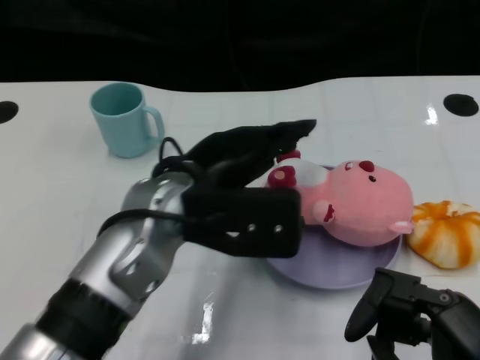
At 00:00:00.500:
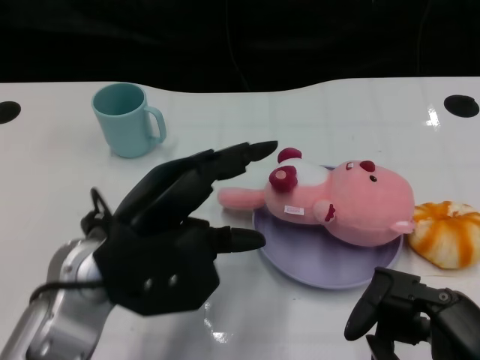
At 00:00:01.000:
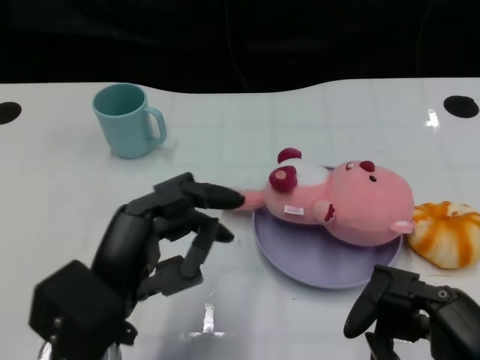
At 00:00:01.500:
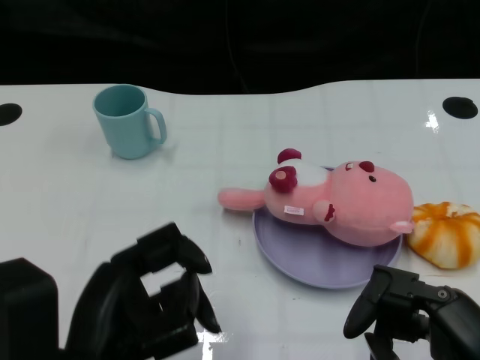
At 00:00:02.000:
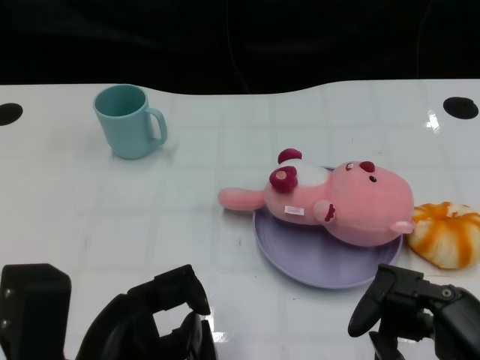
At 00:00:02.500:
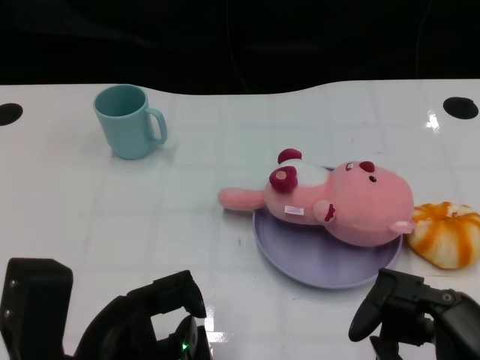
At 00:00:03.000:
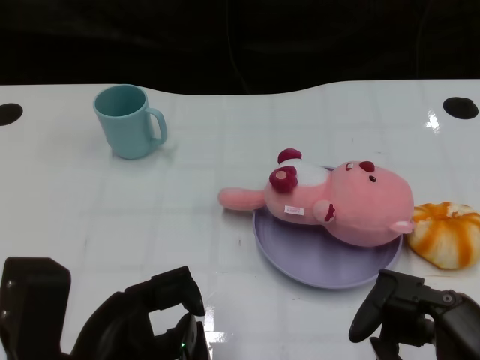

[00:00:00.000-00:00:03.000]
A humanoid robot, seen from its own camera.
Task of the whole recording: Pick up the doll on one side of the plate and place it into the plate.
00:00:00.000 to 00:00:01.500: The left hand goes approximately 15 cm backward and to the left.
00:00:01.500 to 00:00:03.000: The hands make only small movements.

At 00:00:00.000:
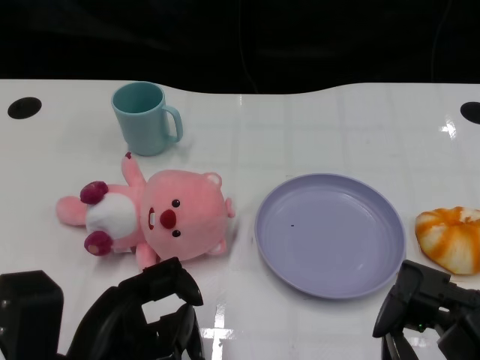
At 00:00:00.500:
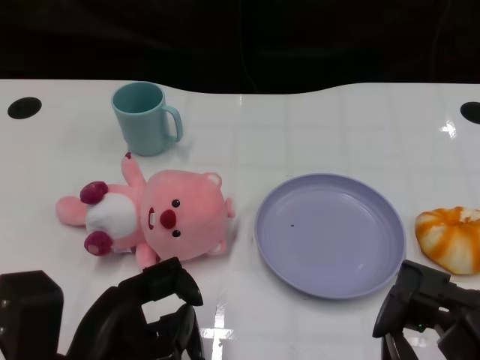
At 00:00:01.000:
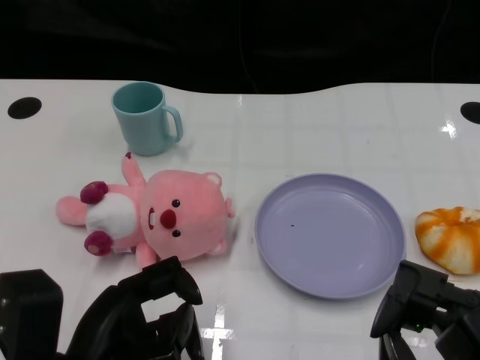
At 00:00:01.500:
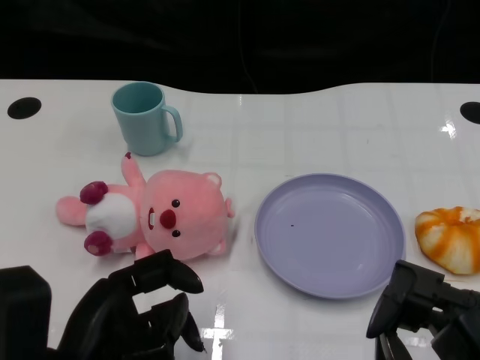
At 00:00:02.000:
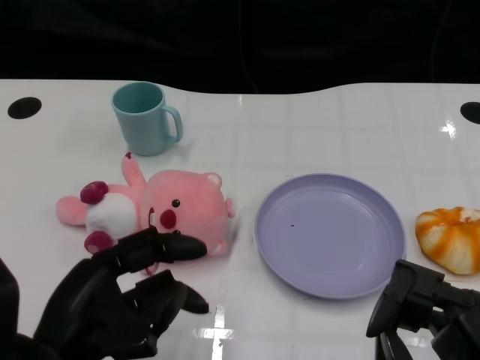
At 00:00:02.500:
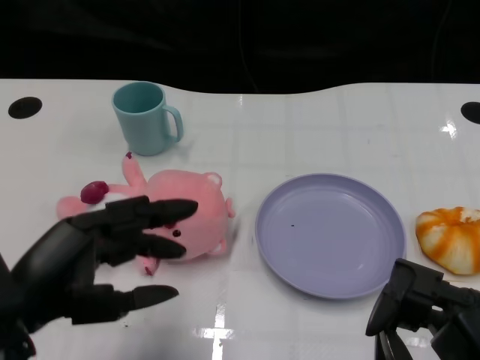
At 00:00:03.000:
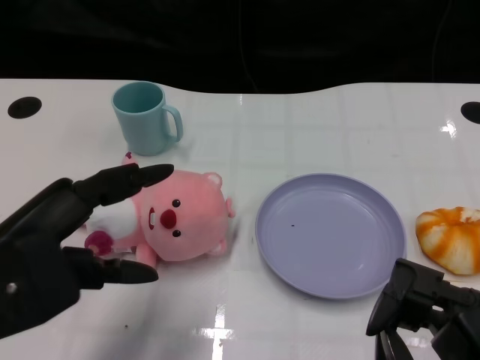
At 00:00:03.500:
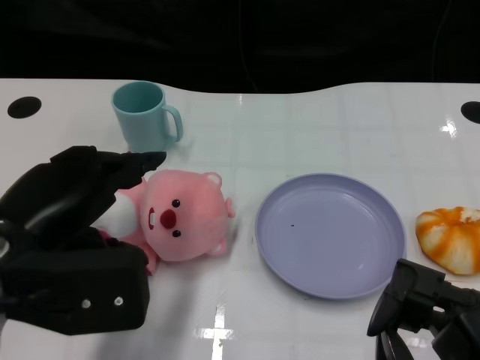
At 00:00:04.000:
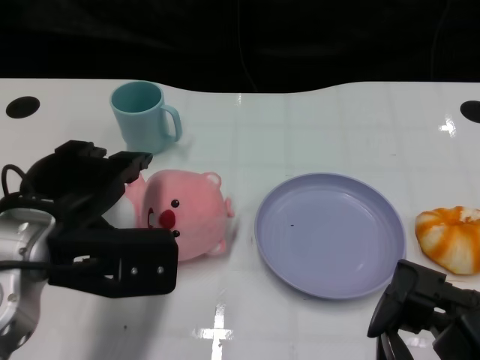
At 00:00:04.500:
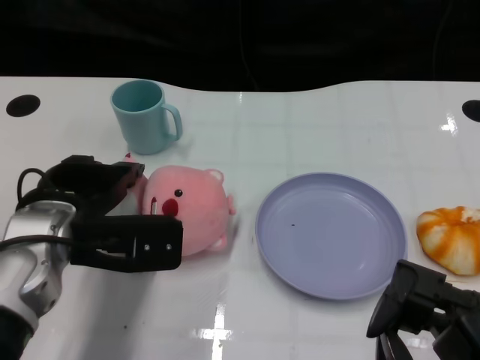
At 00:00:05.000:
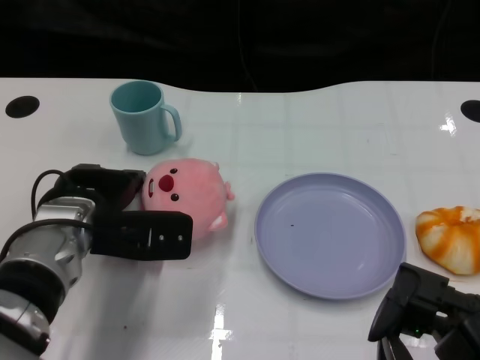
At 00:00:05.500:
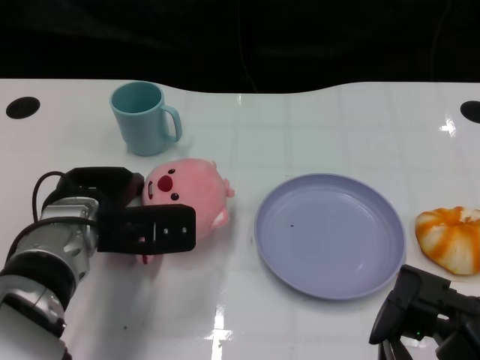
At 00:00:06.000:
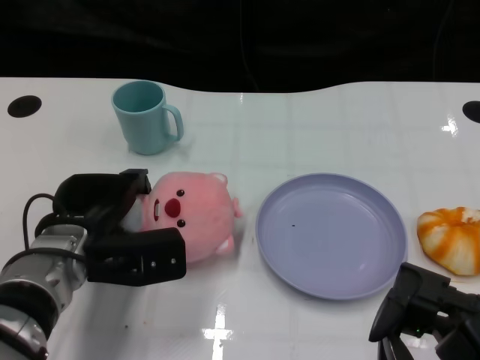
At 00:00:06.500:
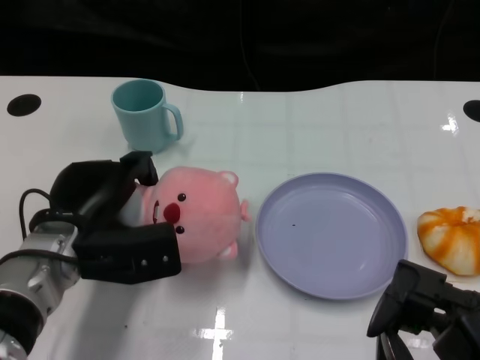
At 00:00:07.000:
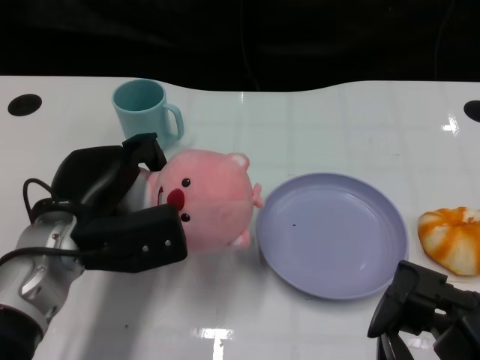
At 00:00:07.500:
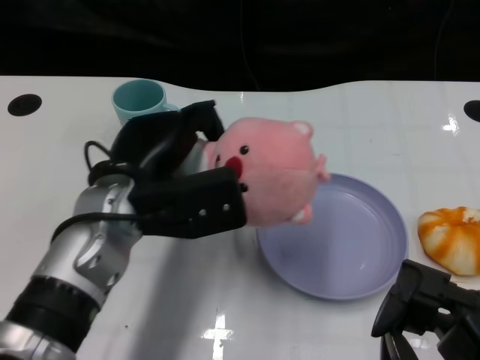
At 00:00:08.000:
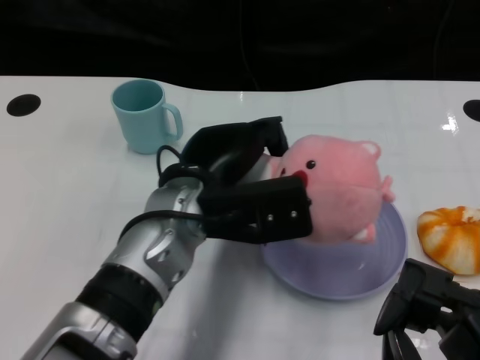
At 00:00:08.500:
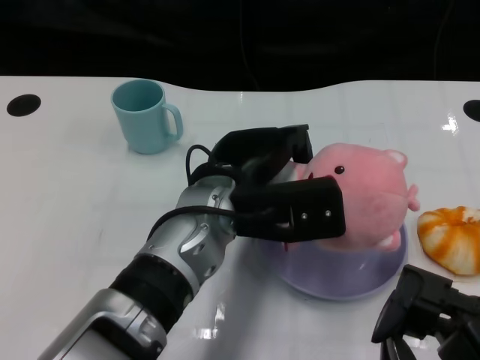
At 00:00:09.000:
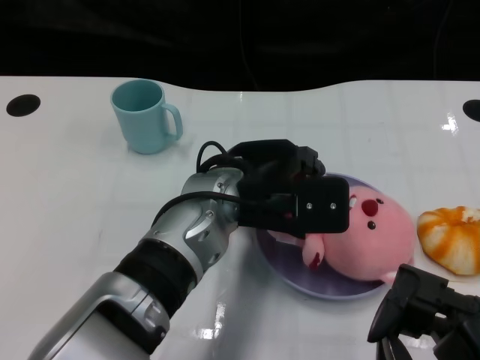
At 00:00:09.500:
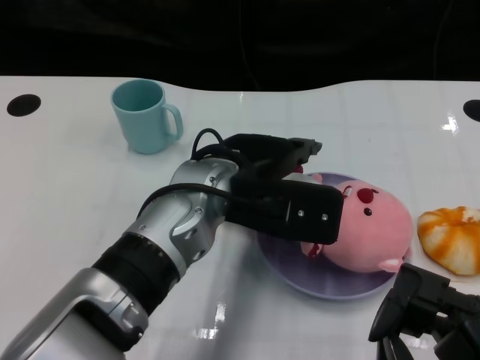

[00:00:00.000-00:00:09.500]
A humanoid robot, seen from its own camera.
Task of the whole recording: Pick up the doll on one side of the plate and place it into the plate.
Step, 00:00:01.500 to 00:00:06.000: Grasp the pink doll with the left gripper.
Step, 00:00:06.500 to 00:00:09.000: Place the pink doll into the plate with the left gripper.
00:00:02.000 to 00:00:04.000: The left hand goes roughly 10 cm forward and upward.
00:00:04.000 to 00:00:05.500: The left hand travels downward and forward by some 10 cm.
00:00:05.500 to 00:00:07.500: The left hand moves upward, about 5 cm.
00:00:07.500 to 00:00:09.500: The left hand goes about 10 cm to the right.

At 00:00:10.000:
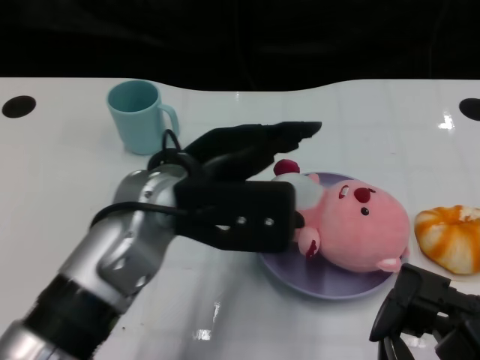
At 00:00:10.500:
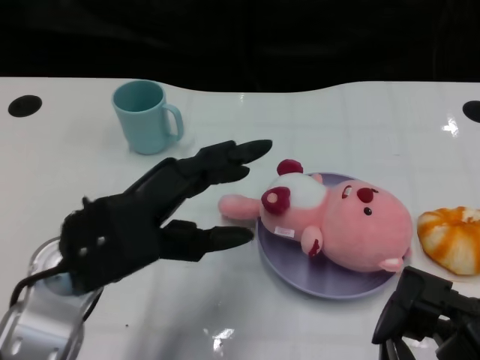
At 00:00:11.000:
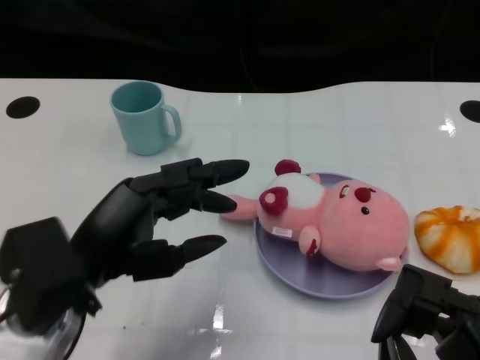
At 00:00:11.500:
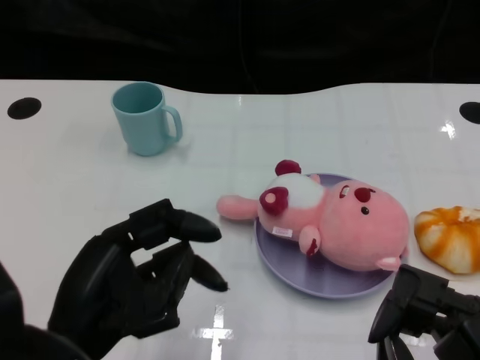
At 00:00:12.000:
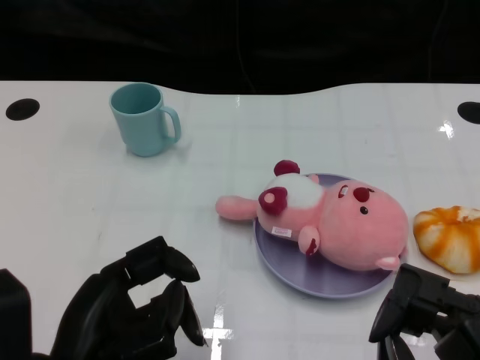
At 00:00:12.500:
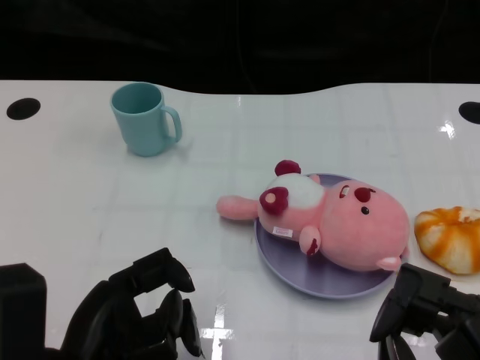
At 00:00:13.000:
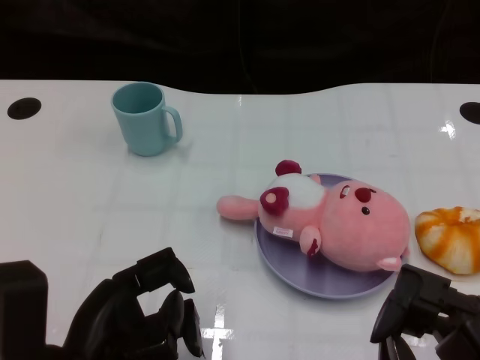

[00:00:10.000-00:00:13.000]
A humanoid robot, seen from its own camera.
Task of the whole recording: Pick up the doll on one side of the plate and place it into the plate.
00:00:10.000 to 00:00:11.500: The left hand travels backward, to the left and downward by some 15 cm.

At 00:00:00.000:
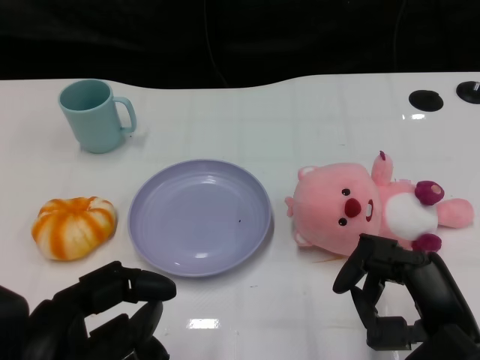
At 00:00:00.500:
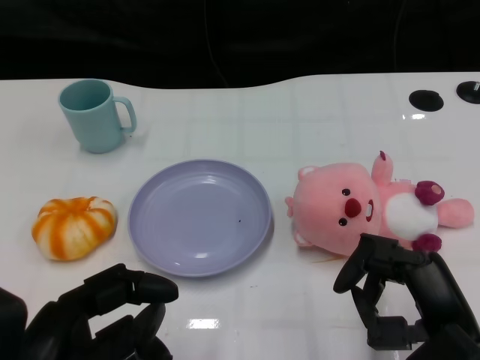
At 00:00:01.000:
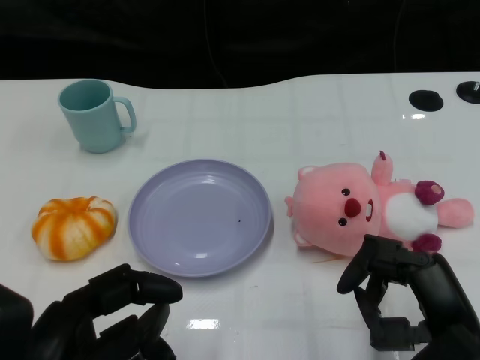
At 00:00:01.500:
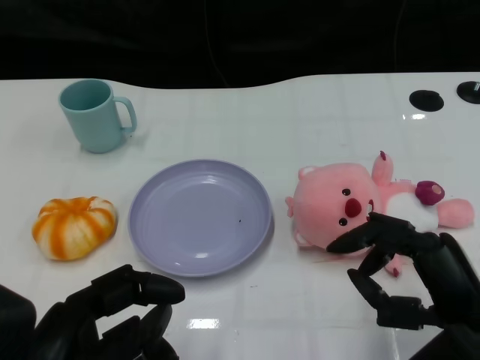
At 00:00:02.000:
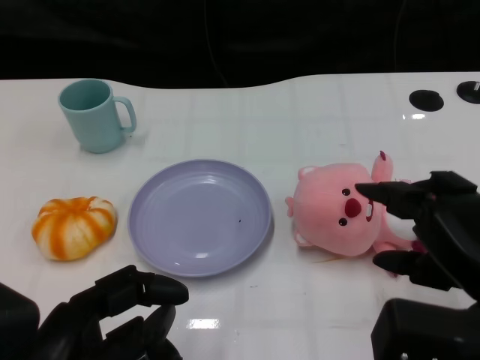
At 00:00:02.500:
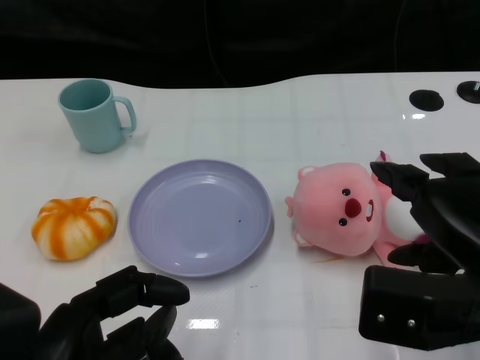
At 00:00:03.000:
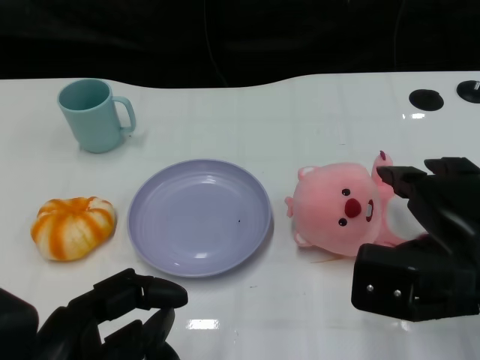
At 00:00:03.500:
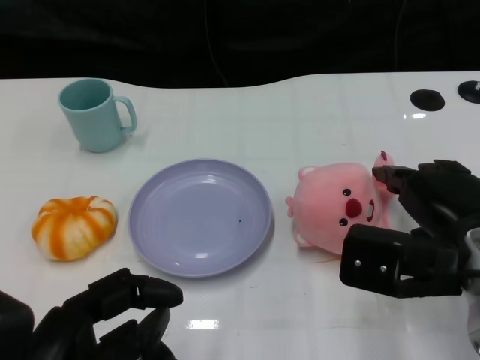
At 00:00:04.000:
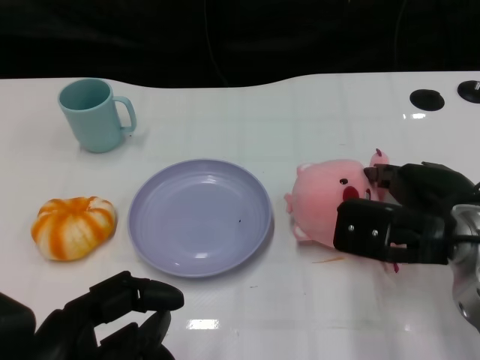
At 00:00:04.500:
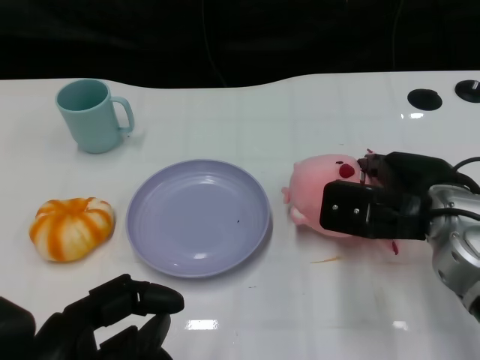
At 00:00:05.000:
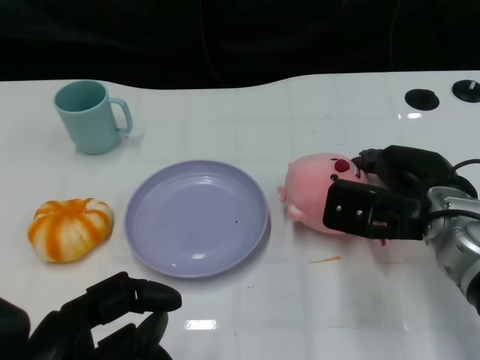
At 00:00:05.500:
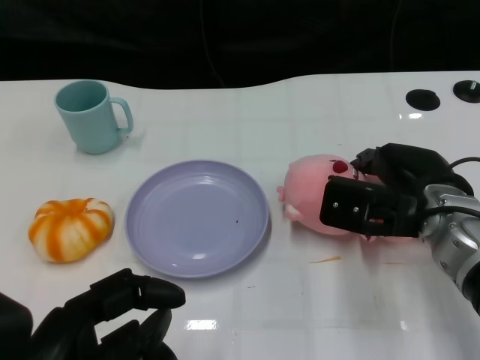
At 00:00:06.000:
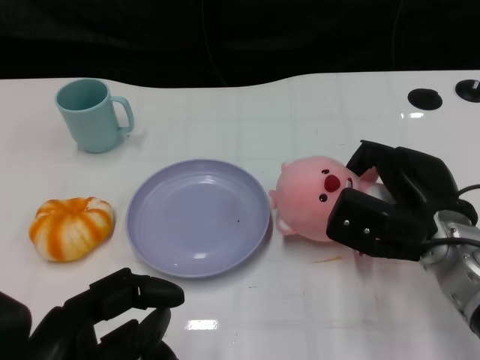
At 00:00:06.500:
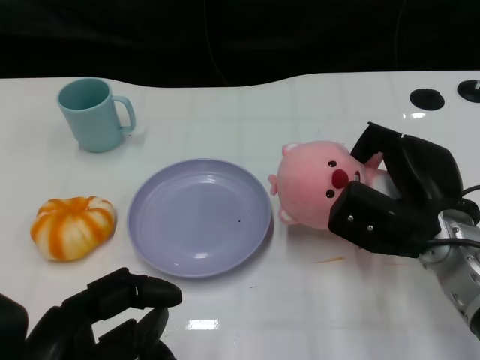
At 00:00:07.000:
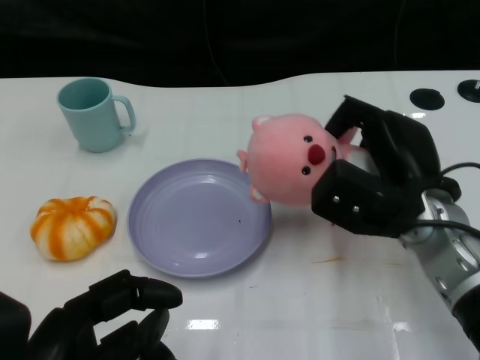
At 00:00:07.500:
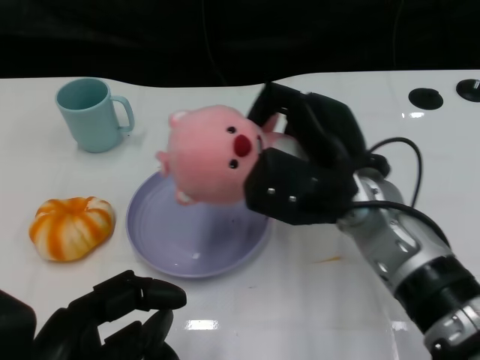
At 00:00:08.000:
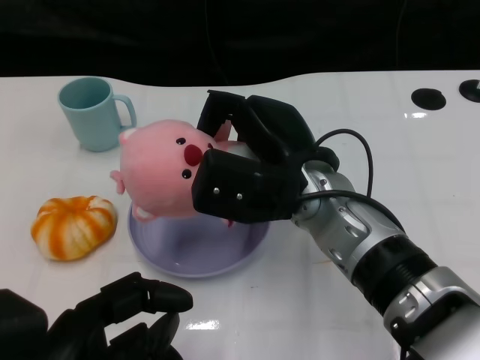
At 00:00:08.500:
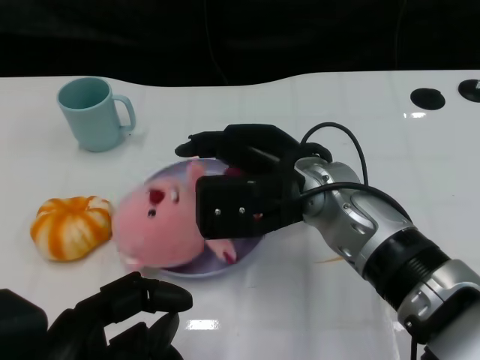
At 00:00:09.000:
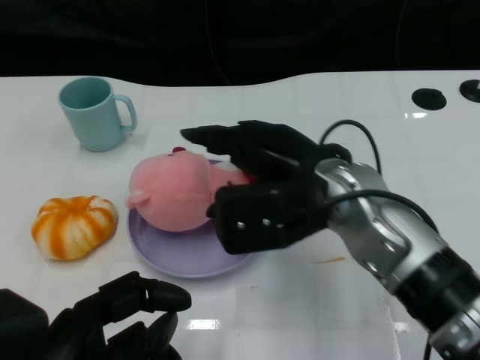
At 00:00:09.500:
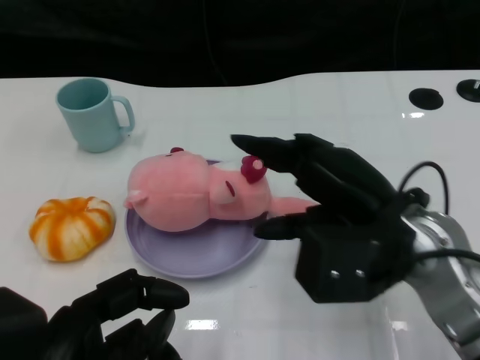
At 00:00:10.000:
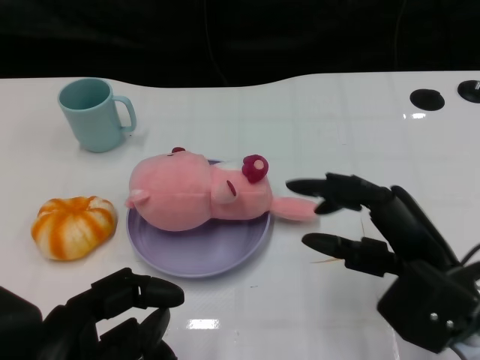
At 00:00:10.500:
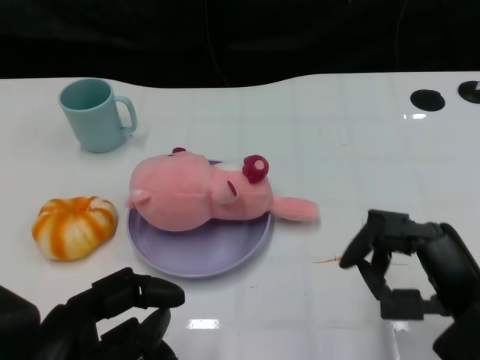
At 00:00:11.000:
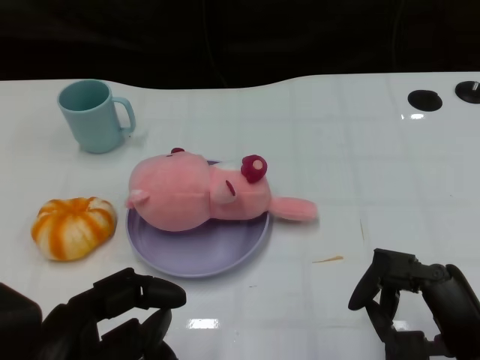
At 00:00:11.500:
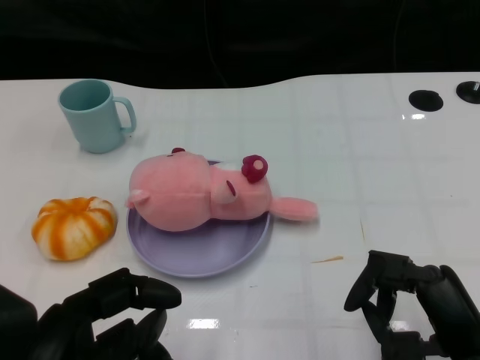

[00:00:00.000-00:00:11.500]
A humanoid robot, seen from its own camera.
Task of the whole recording: Pick up the doll on the other side of the plate and place it into the plate.
Step, 00:00:01.000 to 00:00:07.000: Grasp the pink doll with the right gripper.
Step, 00:00:07.500 to 00:00:09.500: Place the pink doll into the plate with the right gripper.
00:00:02.000 to 00:00:04.000: The right hand is displaced forward by some 10 cm.
00:00:04.000 to 00:00:06.000: The right hand shifts roughly 5 cm downward.
00:00:06.000 to 00:00:07.500: The right hand is displaced to the left and upward by about 10 cm.
00:00:07.500 to 00:00:09.500: The right hand changes place by some 5 cm.
00:00:09.500 to 00:00:11.500: The right hand is displaced backward, downward and to the right by roughly 15 cm.
